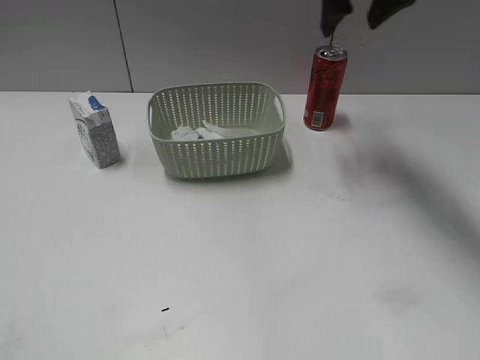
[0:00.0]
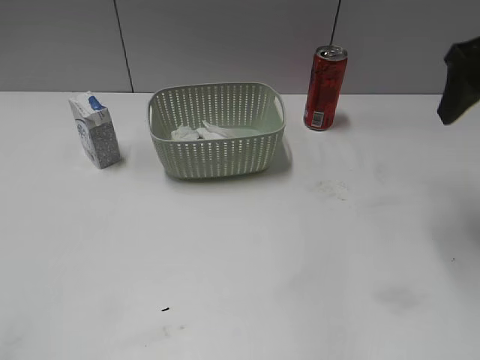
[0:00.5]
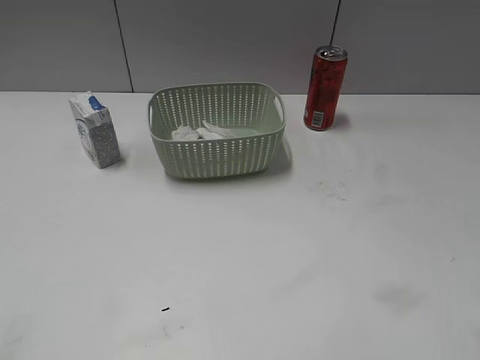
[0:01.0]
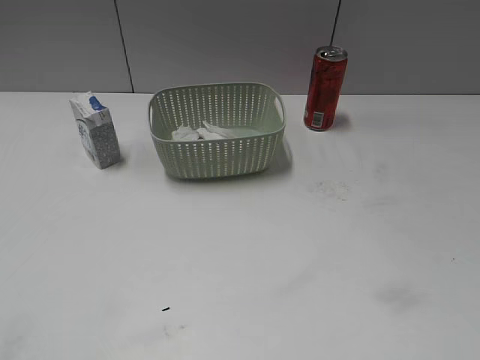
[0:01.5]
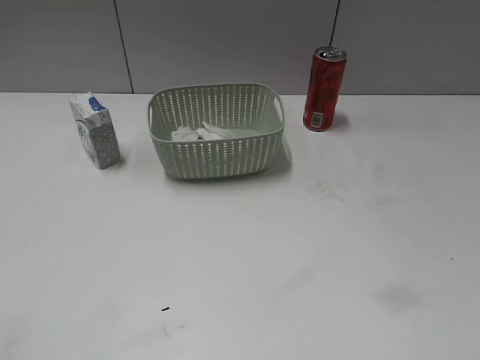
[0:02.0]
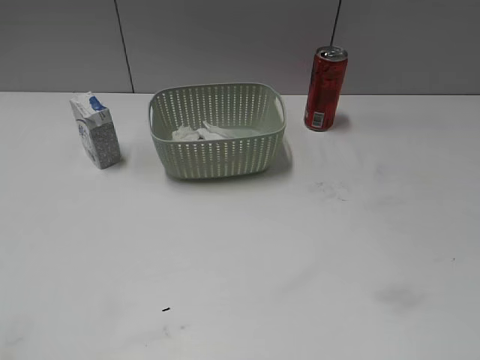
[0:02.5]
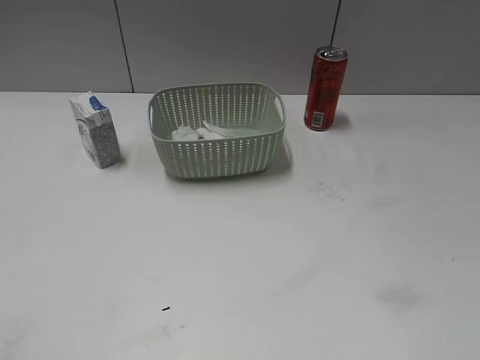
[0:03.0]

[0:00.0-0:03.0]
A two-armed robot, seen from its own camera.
0:00.0 to 0:01.5: The right gripper is displaced backward and to the right by approximately 40 cm.

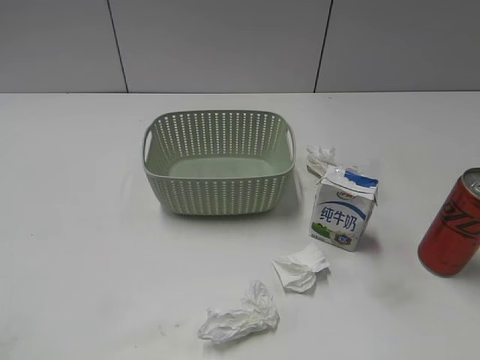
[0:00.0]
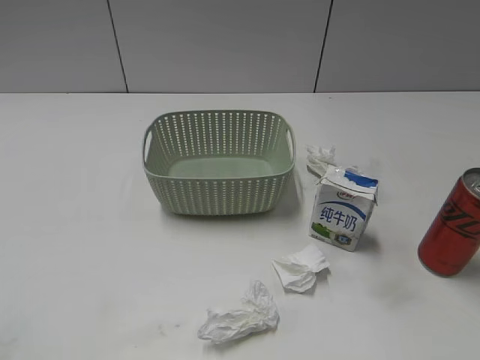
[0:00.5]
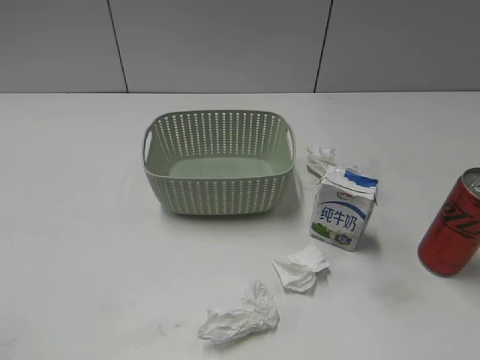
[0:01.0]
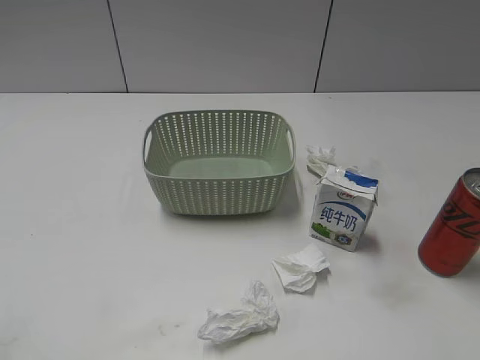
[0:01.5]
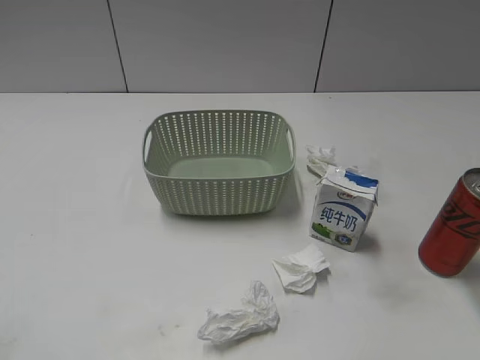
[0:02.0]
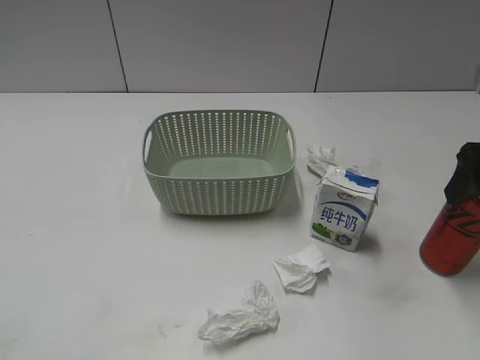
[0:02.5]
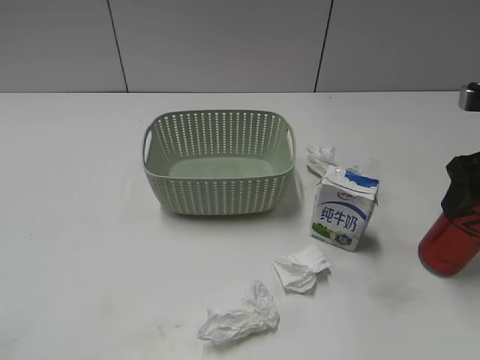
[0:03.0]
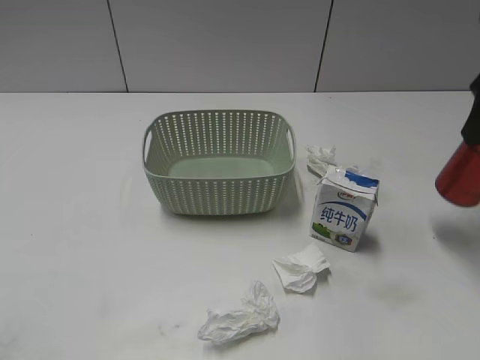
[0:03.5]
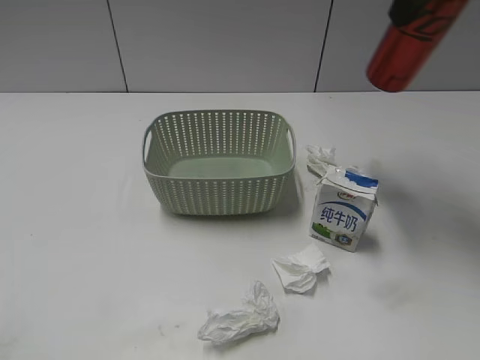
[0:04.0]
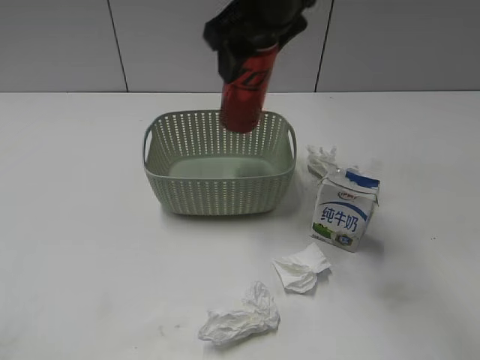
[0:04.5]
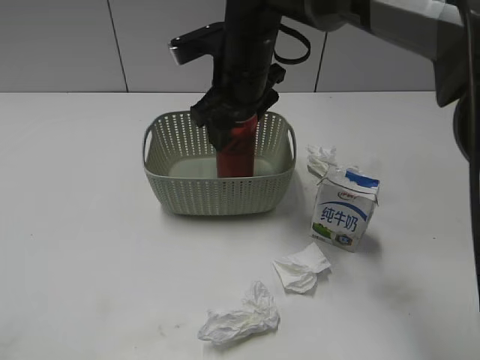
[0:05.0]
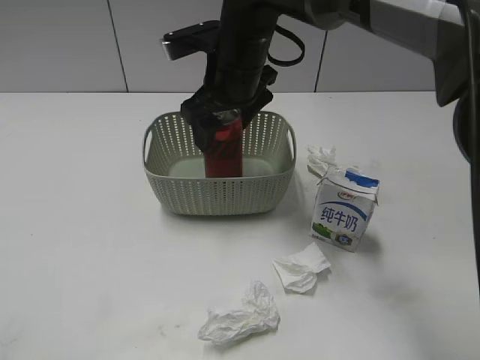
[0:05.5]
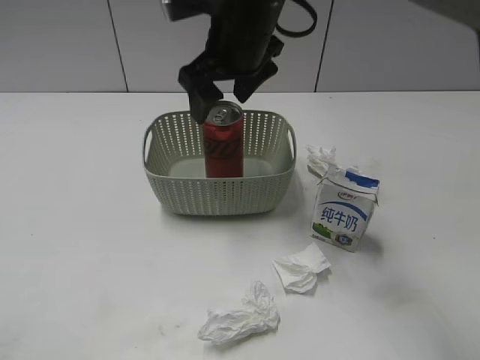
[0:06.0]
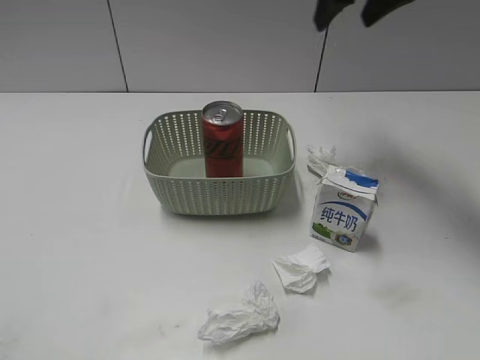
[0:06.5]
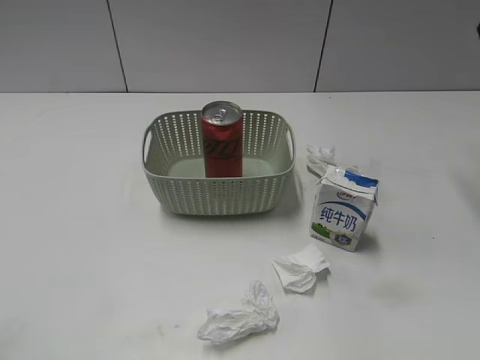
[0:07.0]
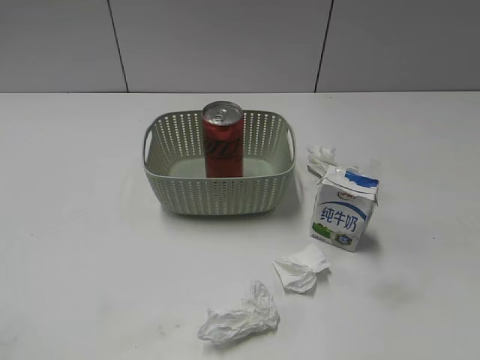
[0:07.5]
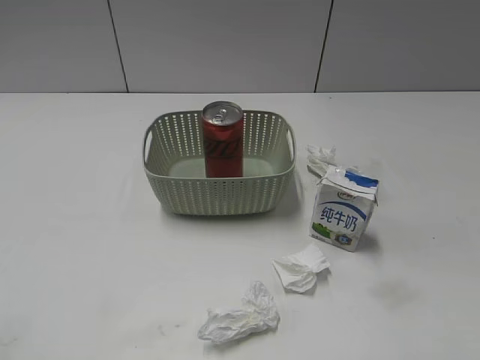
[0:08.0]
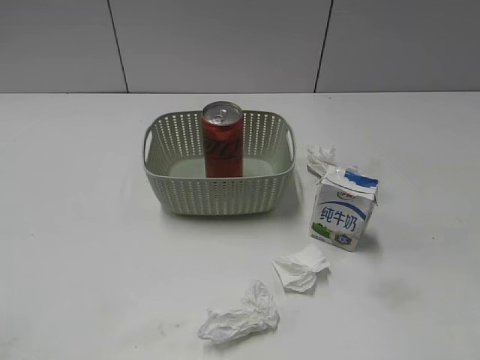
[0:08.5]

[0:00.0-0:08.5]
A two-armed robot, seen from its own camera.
Step, 0:03.5 to 0:06.0: Place the cola can in the basket with right gripper.
0:02.0 to 0:04.0: The right gripper is displaced forward, upward and to the left by roughly 20 cm, and closes its fingers.
0:04.0 to 0:06.5: The right gripper shifts approximately 10 cm forward, moves approximately 20 cm to the left and comes back, and opens its fingers.
0:06.5 to 0:08.5: The right gripper heads backward, covering some 40 cm.

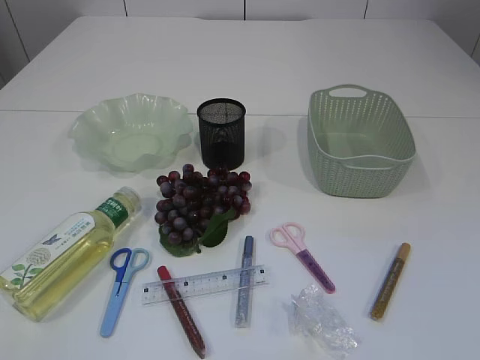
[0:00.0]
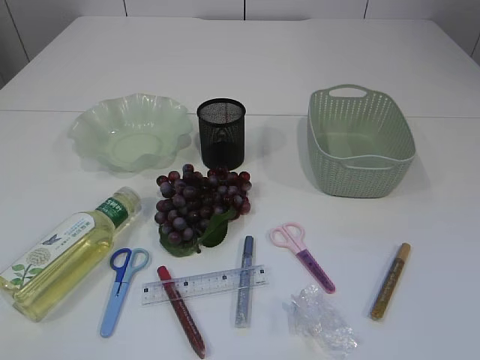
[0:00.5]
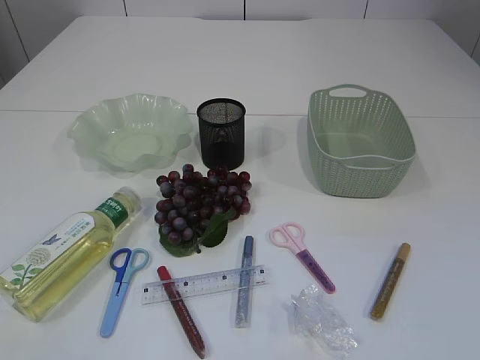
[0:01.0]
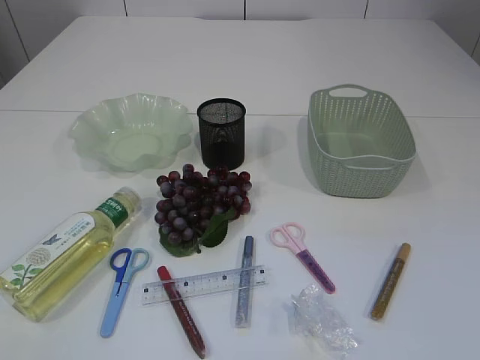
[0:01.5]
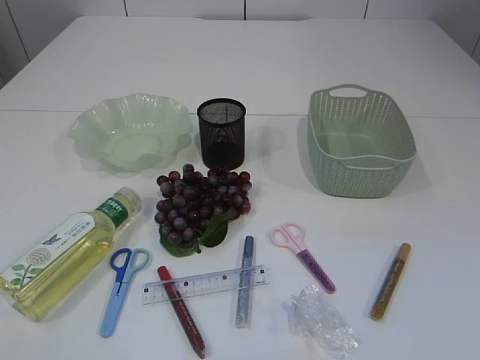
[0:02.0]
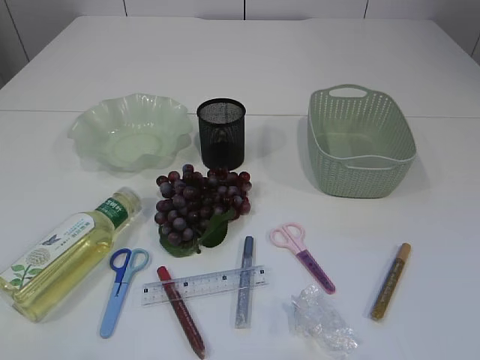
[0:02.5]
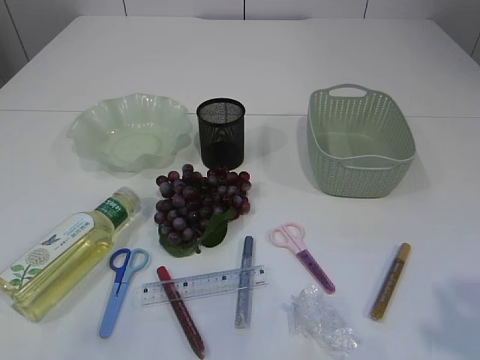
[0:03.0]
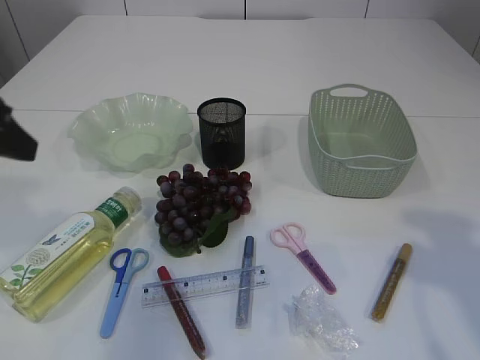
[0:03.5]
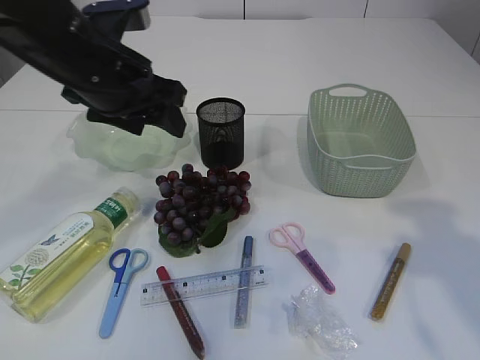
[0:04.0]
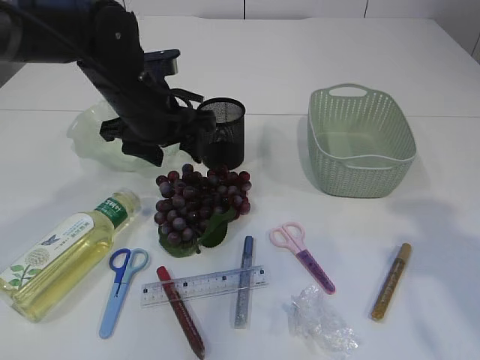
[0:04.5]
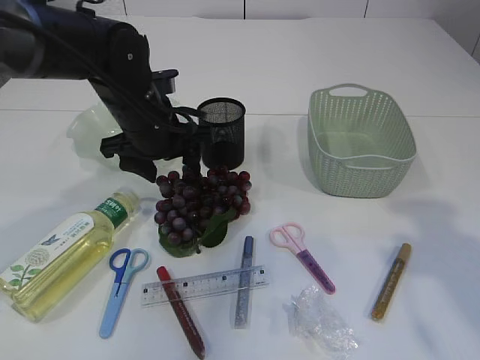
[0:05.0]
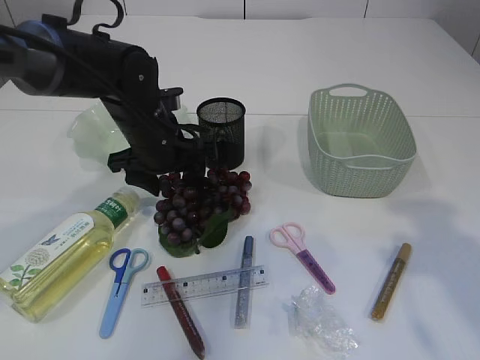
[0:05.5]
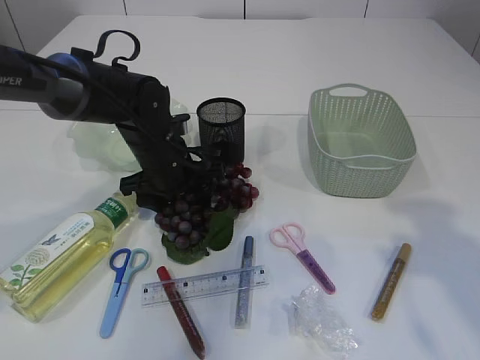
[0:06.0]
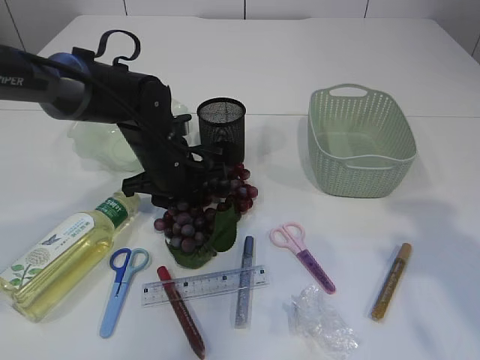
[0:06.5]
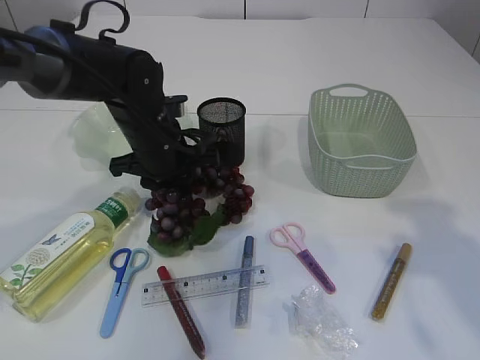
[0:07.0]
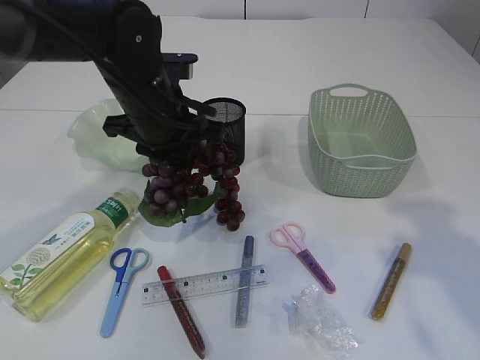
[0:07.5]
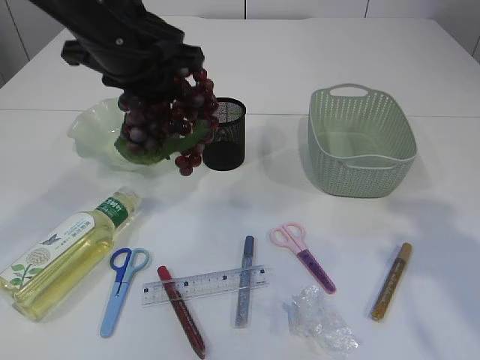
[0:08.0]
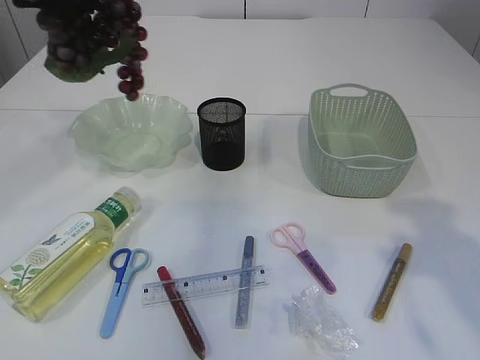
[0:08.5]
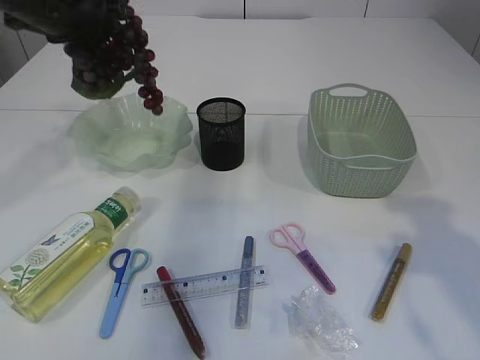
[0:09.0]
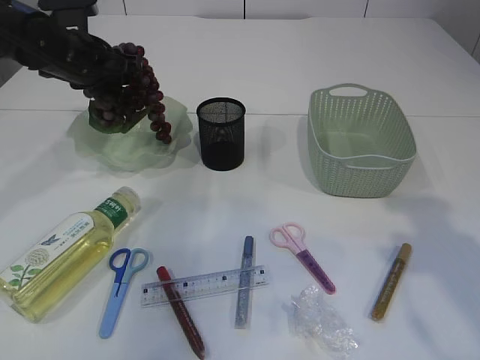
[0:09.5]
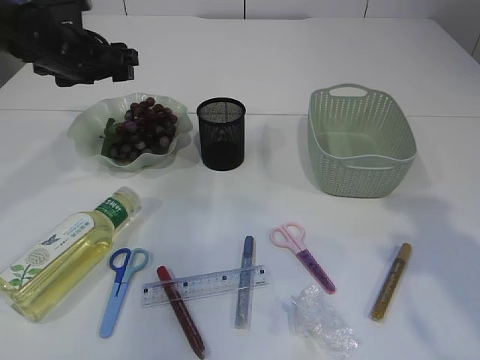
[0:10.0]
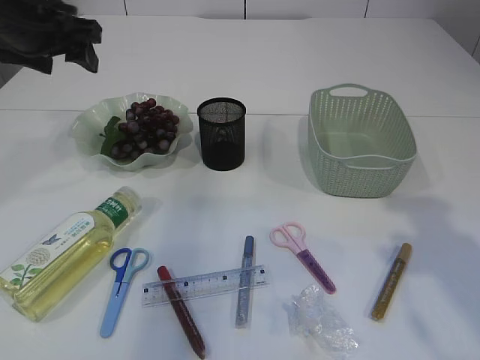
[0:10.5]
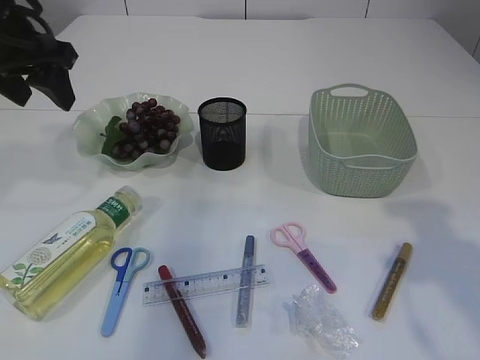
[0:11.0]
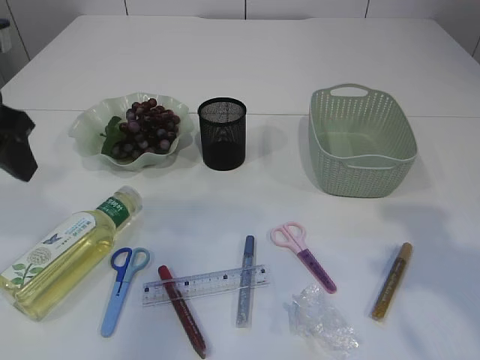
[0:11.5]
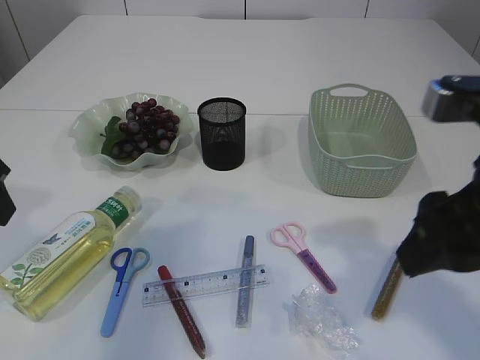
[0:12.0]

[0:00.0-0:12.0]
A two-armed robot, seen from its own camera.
Step, 0:00.0 to 0:08.0: Pick up the grapes.
Step, 0:08.5 to 0:10.0: Place the grapes in the plate.
0:02.0 to 0:04.0: The right gripper shifts about 20 cm forward; the left gripper travels forward and to the right by some 40 cm.
0:04.0 to 0:06.0: The left gripper heads downward, covering approximately 15 cm.
0:06.0 to 0:08.0: The left gripper shifts some 20 cm upward, and closes.
0:08.0 to 0:10.0: The left gripper moves forward, to the left and downward, roughly 20 cm, and opens.
0:10.0 to 0:12.0: The left gripper is displaced backward by roughly 20 cm. The right gripper shifts roughly 5 cm to the left.

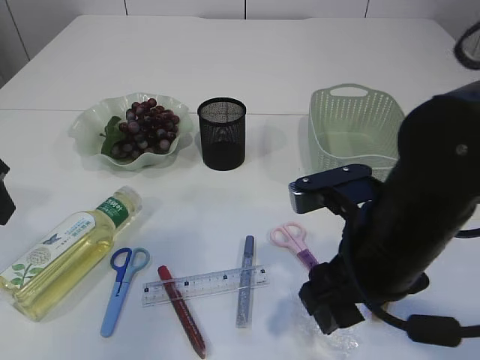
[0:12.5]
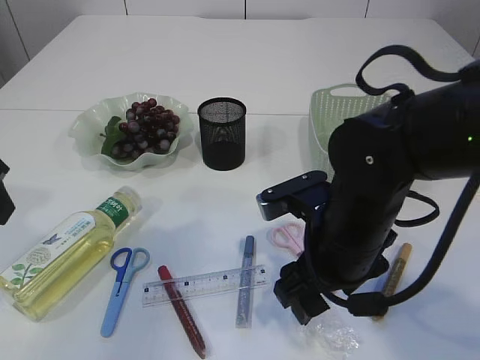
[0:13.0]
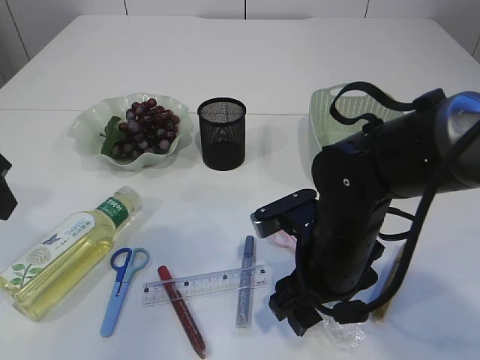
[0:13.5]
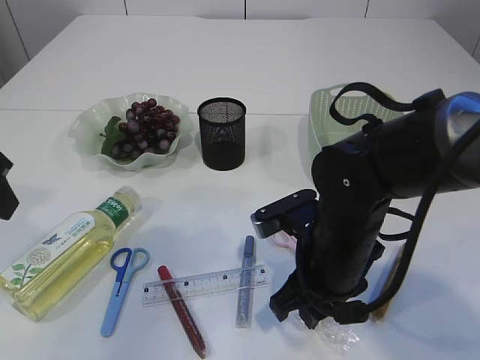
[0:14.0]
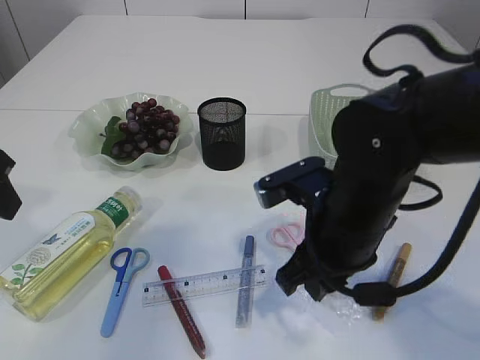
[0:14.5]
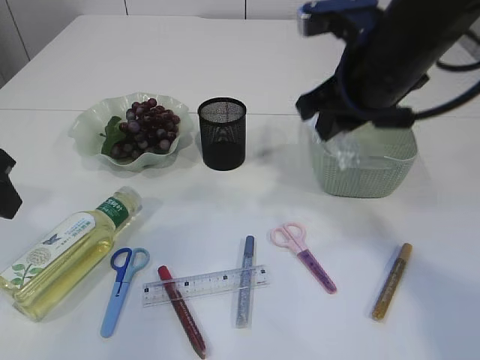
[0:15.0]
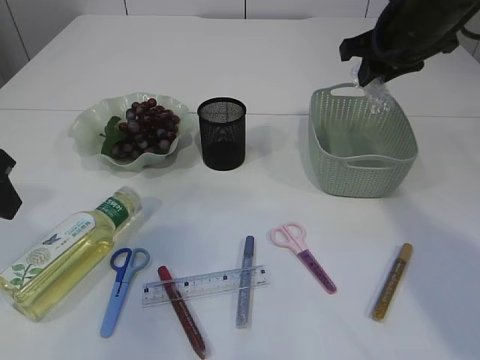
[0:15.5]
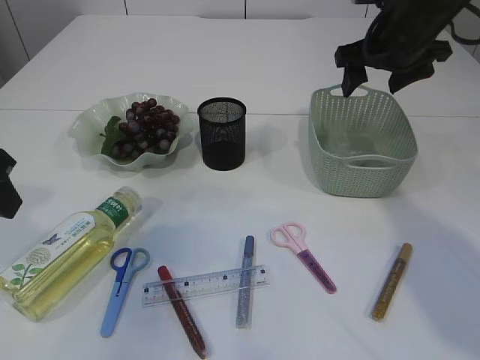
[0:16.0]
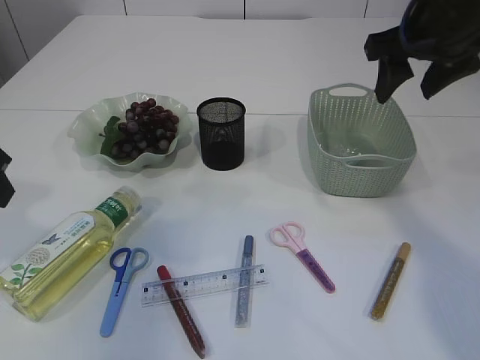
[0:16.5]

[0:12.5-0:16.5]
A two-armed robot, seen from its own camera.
Step, 0:12.5 to 0:14.5: Pick up the plastic.
Step, 0:15.0 to 0:16.0: Place the plastic in the basket.
0:12.5 to 0:14.5: The right gripper closes up.
0:14.5 to 0:16.5: The right gripper heads upward, to the right and forward, covering about 25 cm, and opens up.
